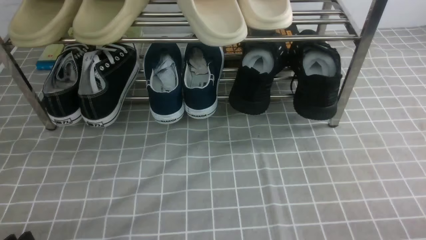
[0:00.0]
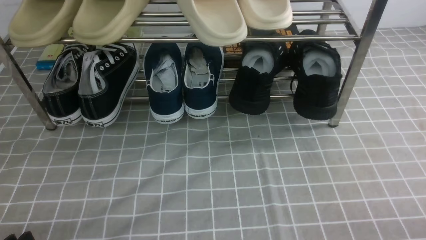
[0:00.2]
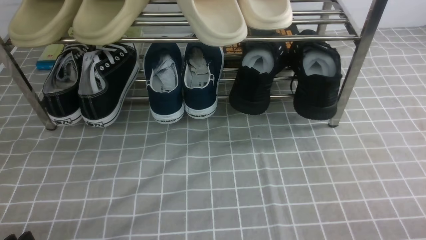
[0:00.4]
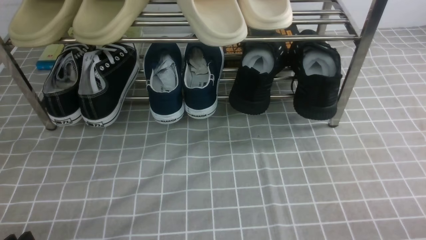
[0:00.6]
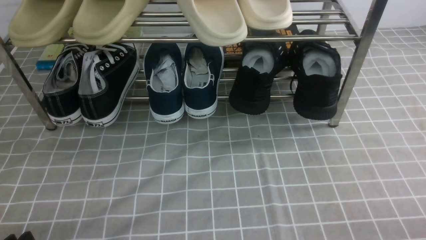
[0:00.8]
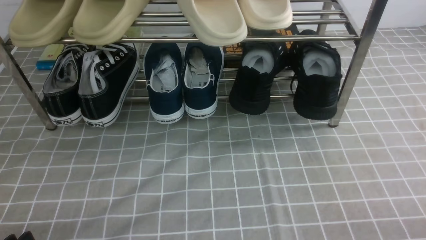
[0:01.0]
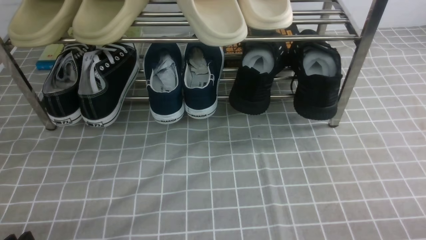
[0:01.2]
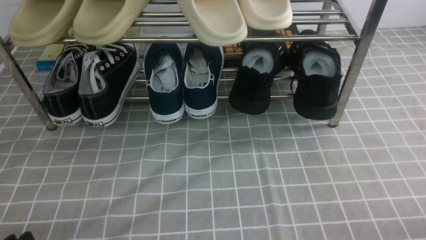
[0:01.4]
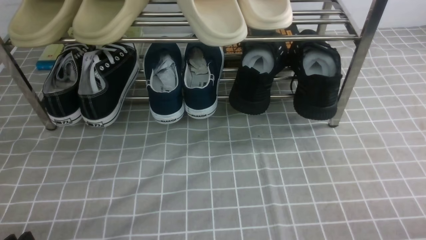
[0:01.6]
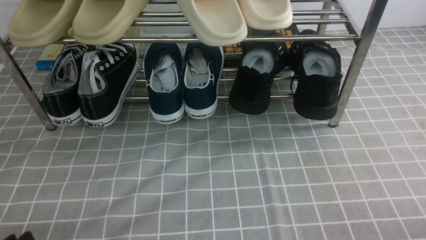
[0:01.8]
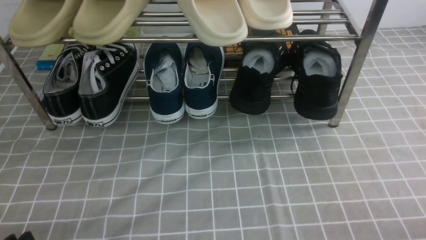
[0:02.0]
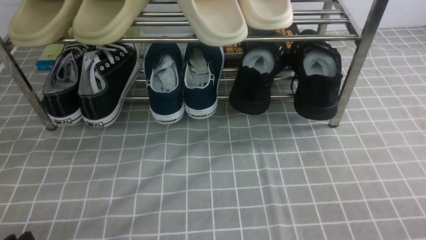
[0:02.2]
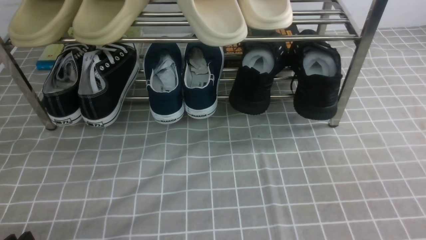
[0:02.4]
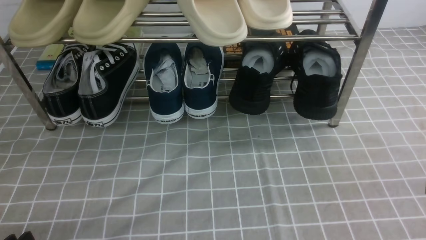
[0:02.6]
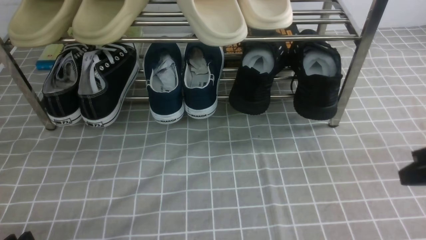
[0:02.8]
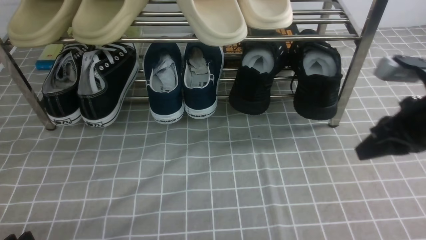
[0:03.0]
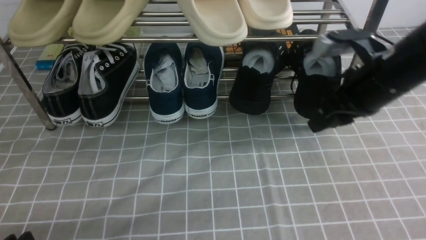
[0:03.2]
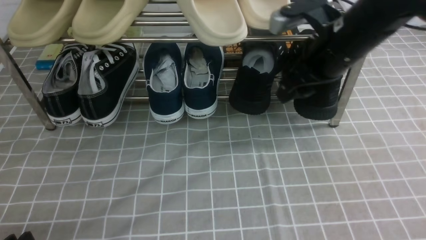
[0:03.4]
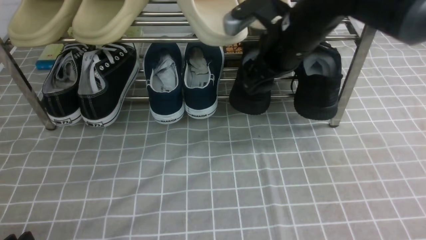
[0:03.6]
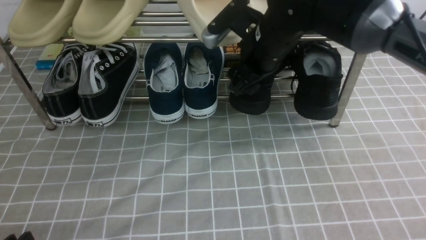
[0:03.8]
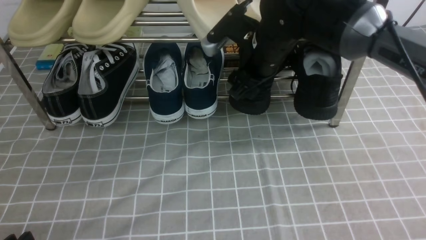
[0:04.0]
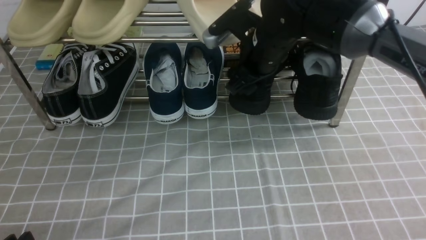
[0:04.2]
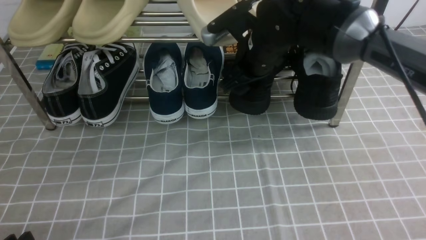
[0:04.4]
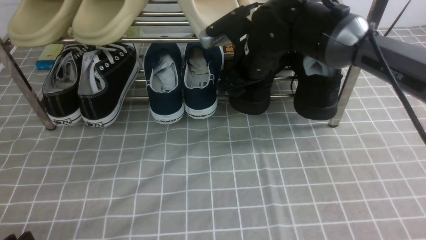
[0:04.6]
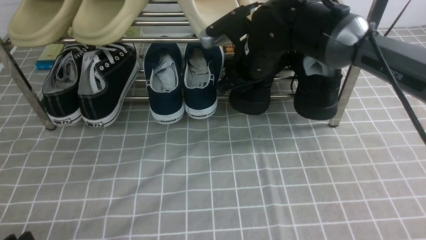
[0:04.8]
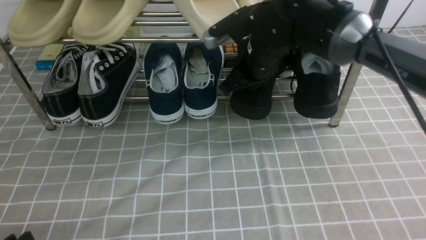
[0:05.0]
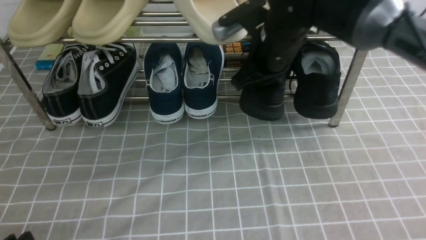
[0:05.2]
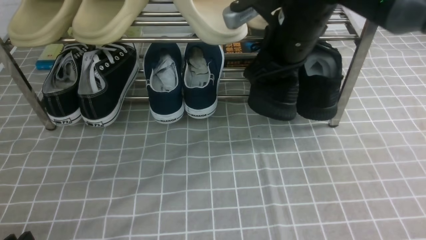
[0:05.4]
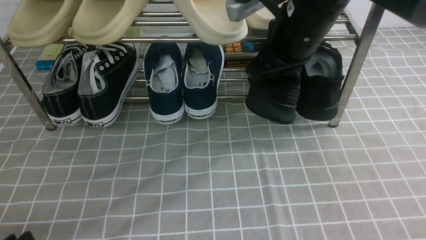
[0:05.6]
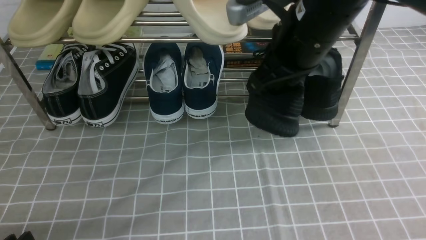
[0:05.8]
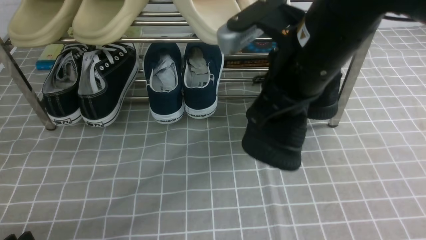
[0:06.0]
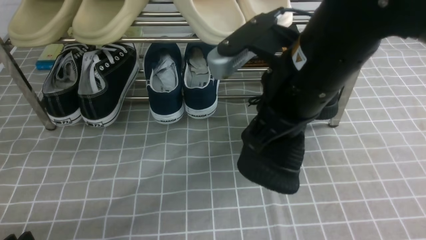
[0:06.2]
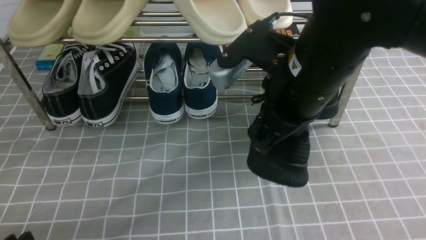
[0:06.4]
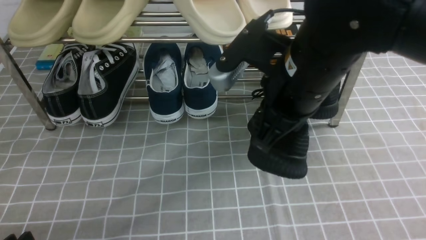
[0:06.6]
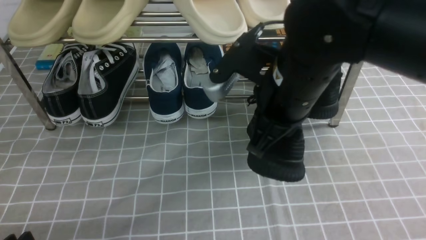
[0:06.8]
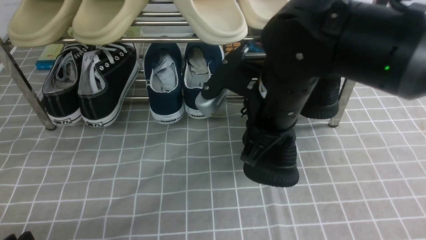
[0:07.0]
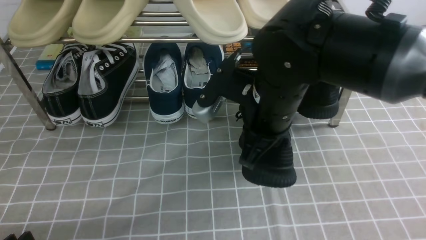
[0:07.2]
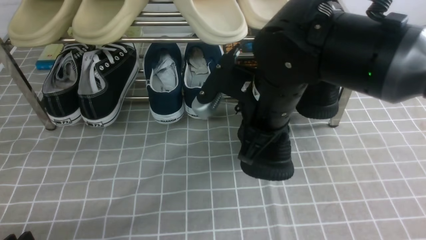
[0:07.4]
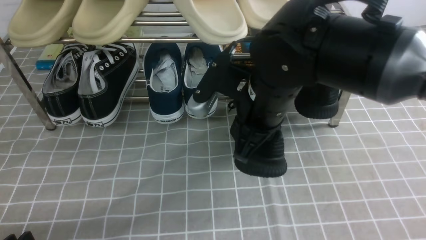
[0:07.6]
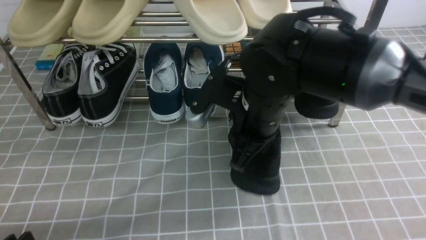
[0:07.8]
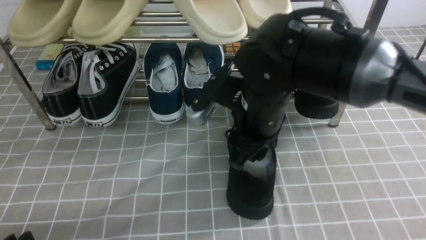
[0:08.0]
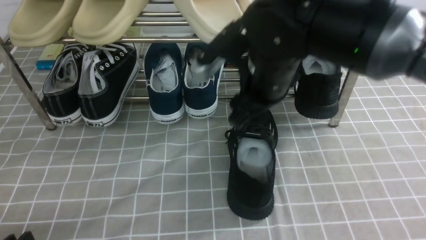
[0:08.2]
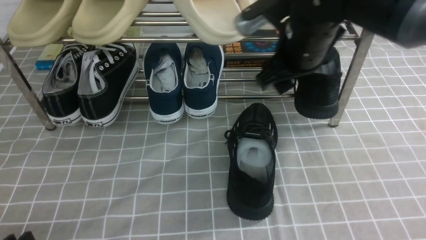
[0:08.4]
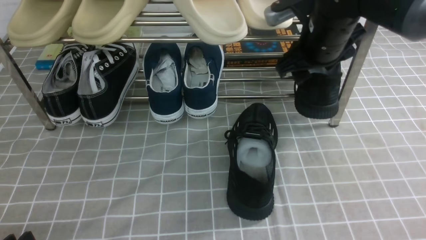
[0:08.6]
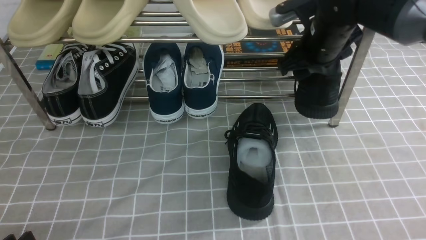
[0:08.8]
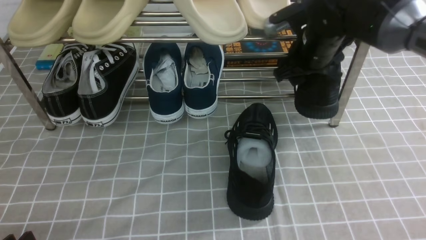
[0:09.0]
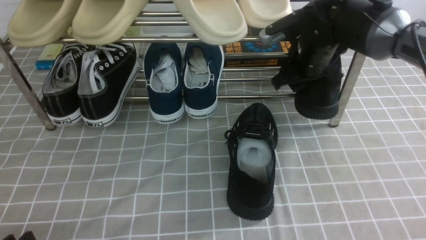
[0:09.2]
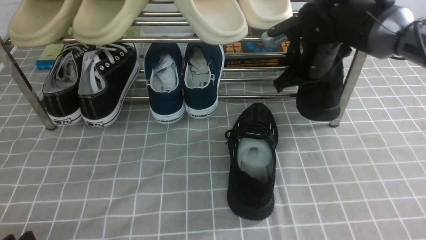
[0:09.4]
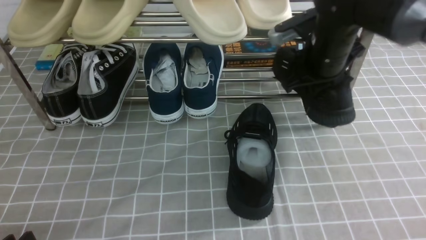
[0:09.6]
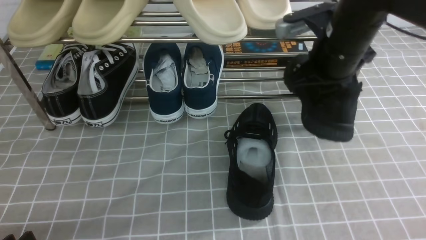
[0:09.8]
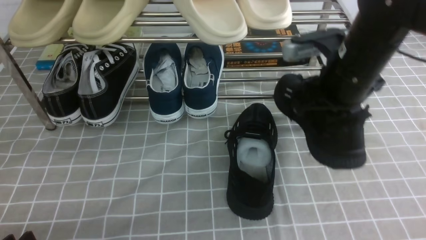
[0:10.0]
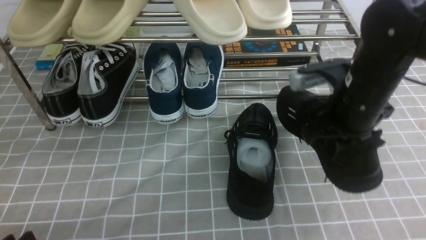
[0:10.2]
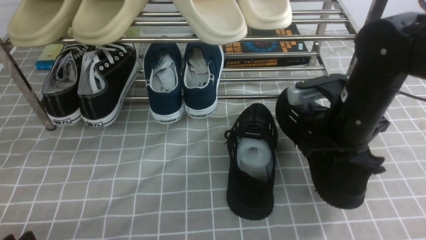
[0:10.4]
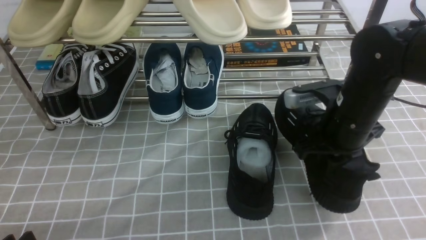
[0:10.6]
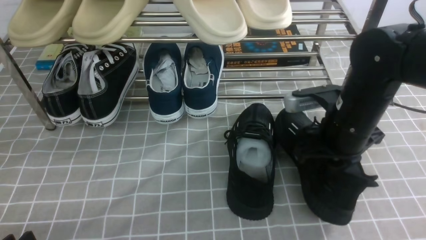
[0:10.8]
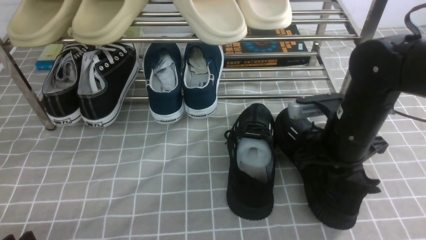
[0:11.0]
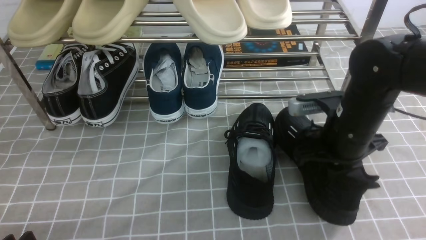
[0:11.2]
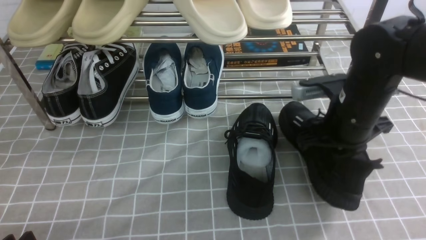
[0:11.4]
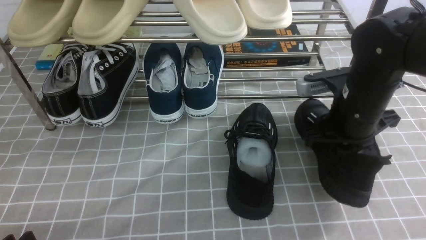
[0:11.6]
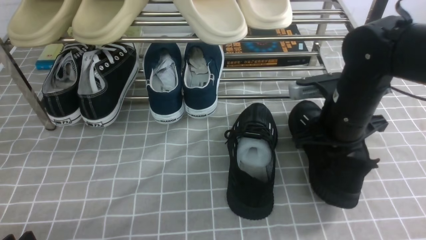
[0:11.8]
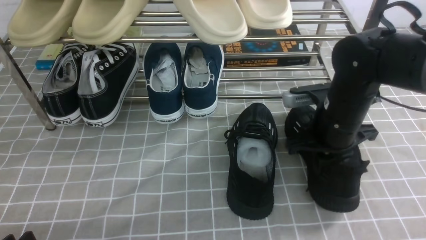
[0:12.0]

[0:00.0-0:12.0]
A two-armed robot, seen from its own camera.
Step, 0:00.0 to 0:05.0: use the right arm to clamp a shoe on the right side of the shoe rack.
Step, 0:05.2 to 0:08.0: use the right arm to take out the clamped shoe from the shoe rack and put it down.
Step, 0:08.2 to 0:09.4: use the right arm to clamp a shoe on the right side of the shoe rack.
0:01.6 to 0:03.0: The right gripper moves forward and upward, some 25 cm.
0:03.0 to 0:04.4: The right gripper heads to the left and forward, covering approximately 25 cm, and opens.
0:04.4 to 0:06.0: The right gripper is displaced backward and upward by roughly 15 cm, and closes its fingers.
0:06.0 to 0:07.6: The right gripper goes some 10 cm downward.
0:07.6 to 0:09.0: The left gripper opens its fingers, while the right gripper shifts roughly 15 cm forward and to the right, and opens its fingers.
0:09.0 to 0:10.4: The right gripper travels backward by about 10 cm, and closes up.
0:10.4 to 0:12.0: The grippers move only a little.

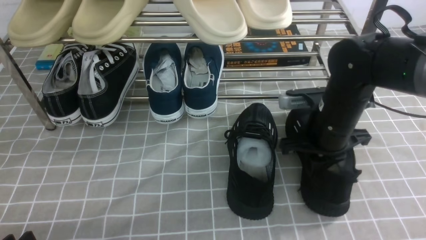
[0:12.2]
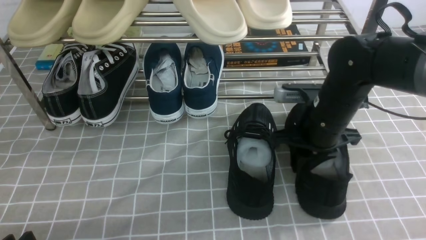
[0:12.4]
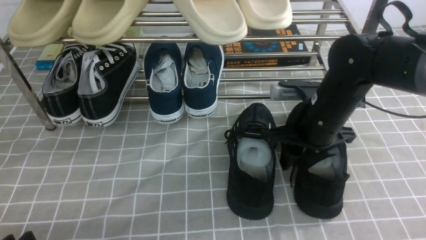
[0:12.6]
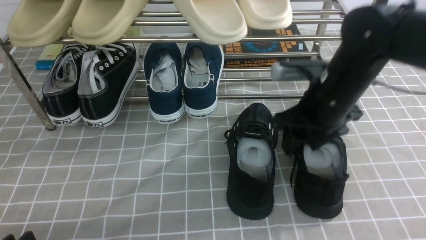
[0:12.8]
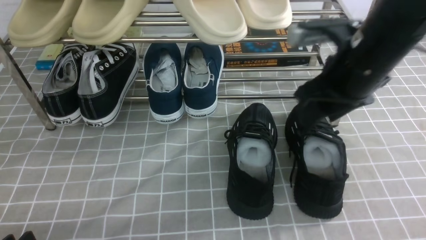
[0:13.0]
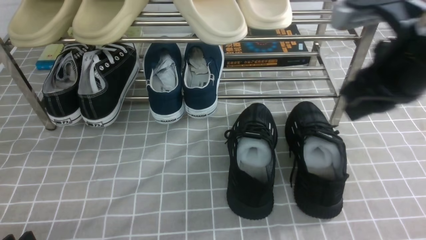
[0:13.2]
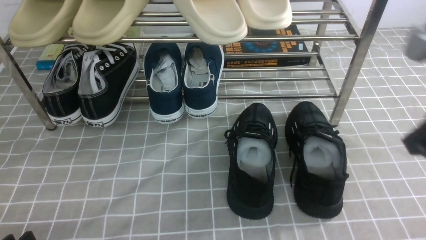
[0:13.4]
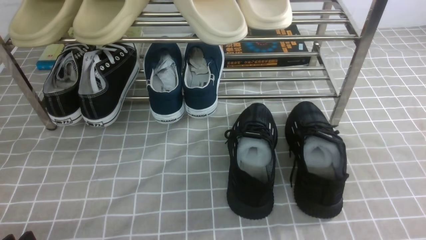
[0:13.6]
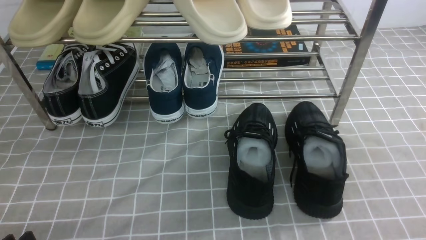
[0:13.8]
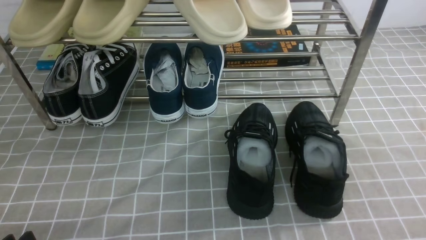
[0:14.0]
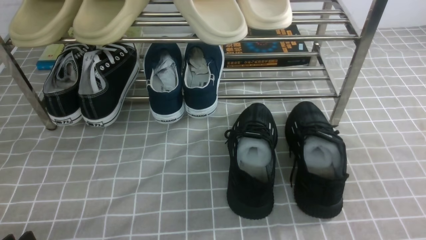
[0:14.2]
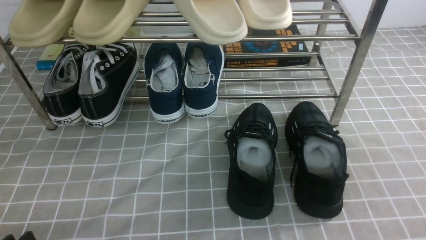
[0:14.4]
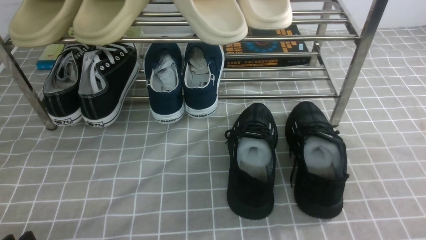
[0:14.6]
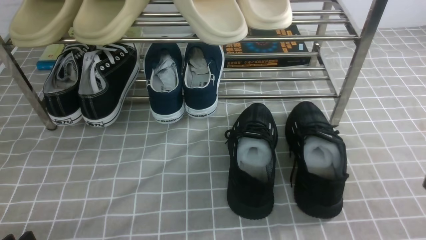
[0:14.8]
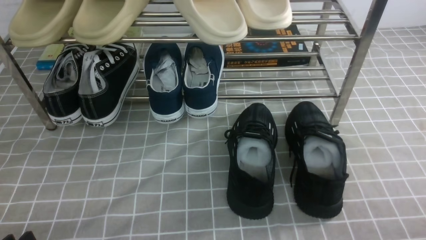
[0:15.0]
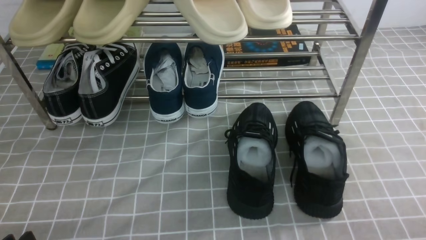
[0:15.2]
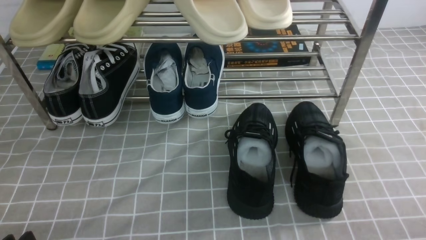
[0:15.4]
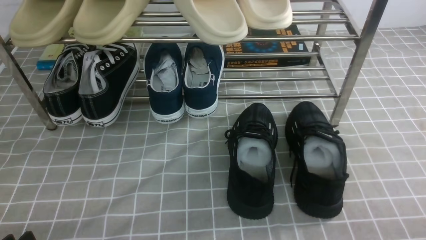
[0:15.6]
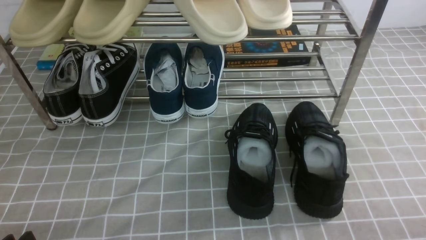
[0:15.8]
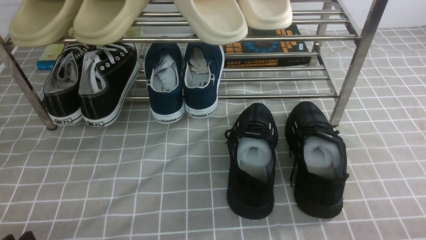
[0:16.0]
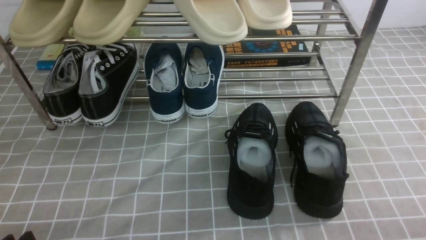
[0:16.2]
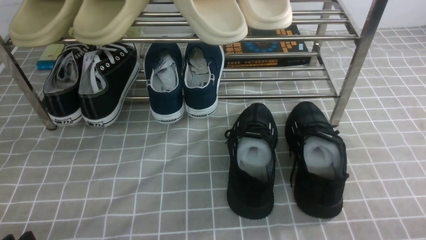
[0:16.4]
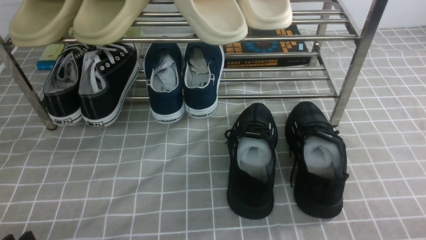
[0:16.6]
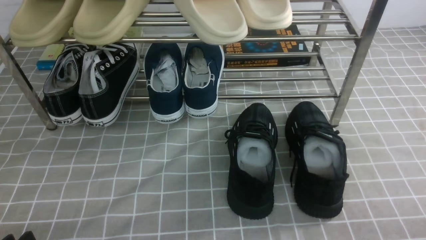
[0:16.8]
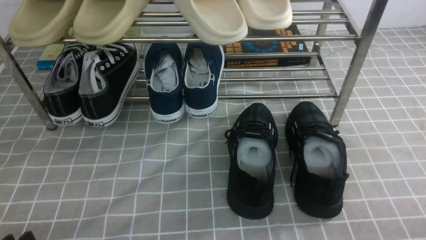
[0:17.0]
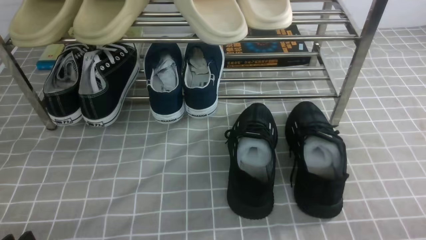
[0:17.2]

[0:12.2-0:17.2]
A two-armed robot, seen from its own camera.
0:12.2 to 0:13.8: The right gripper goes about 25 cm backward, to the right and upward, and opens, then closes once more.
0:15.6 to 0:17.2: Both grippers stay about where they are.
